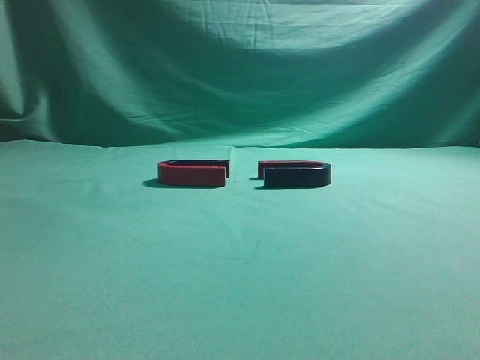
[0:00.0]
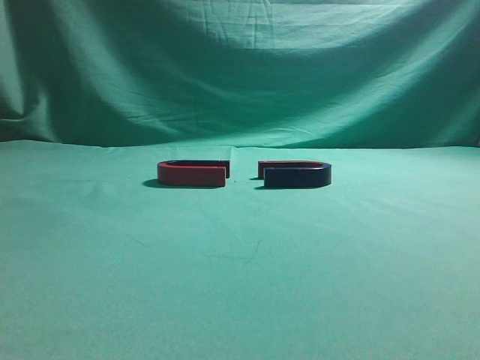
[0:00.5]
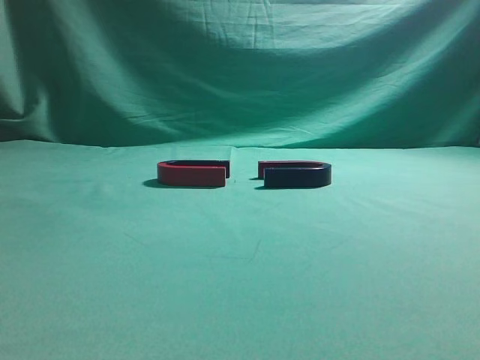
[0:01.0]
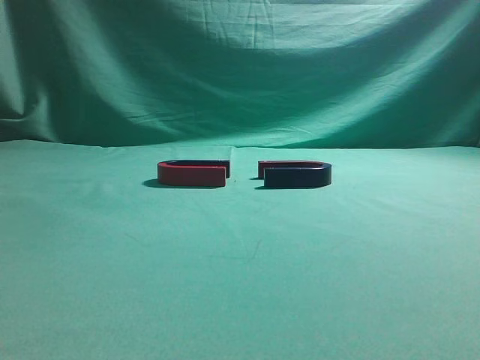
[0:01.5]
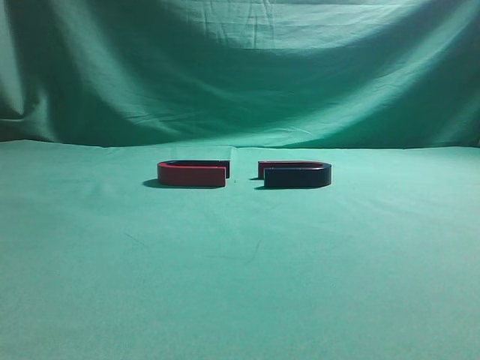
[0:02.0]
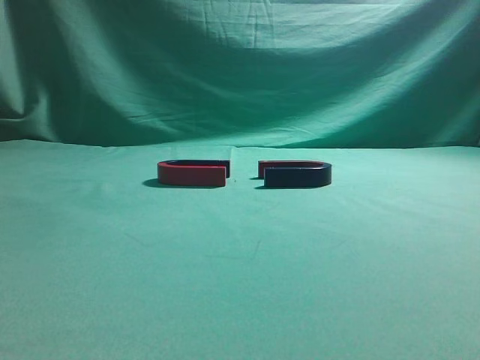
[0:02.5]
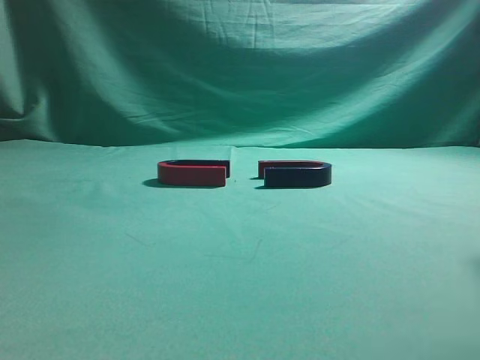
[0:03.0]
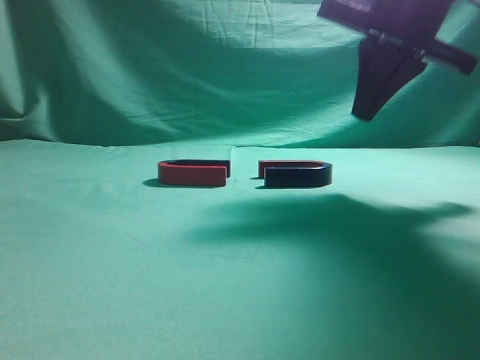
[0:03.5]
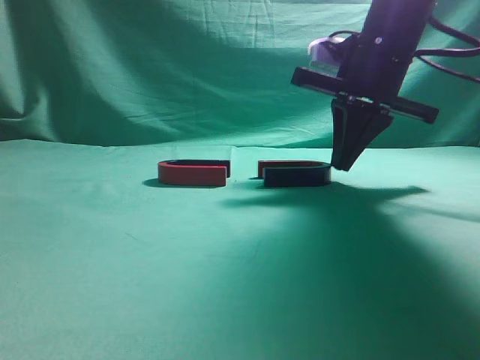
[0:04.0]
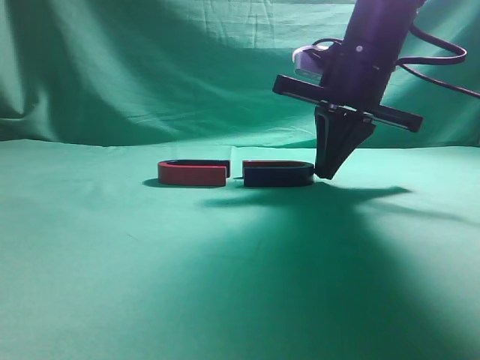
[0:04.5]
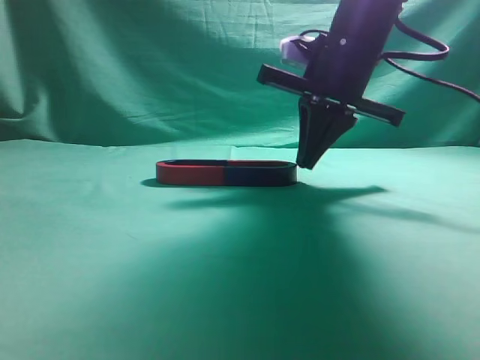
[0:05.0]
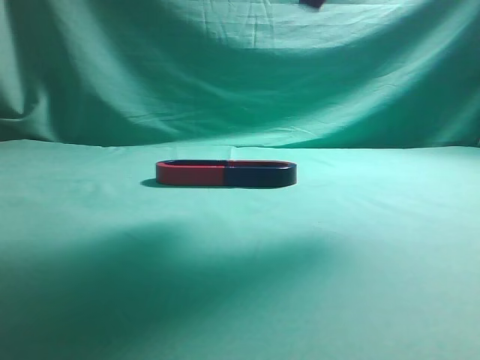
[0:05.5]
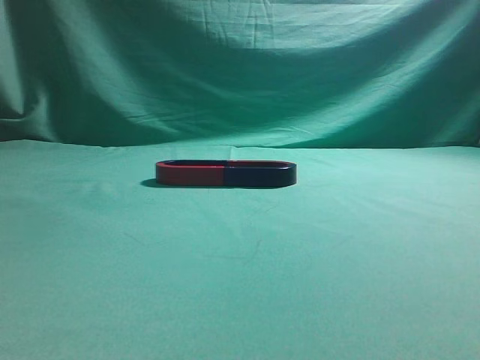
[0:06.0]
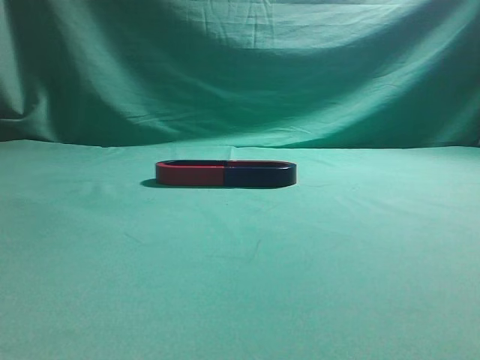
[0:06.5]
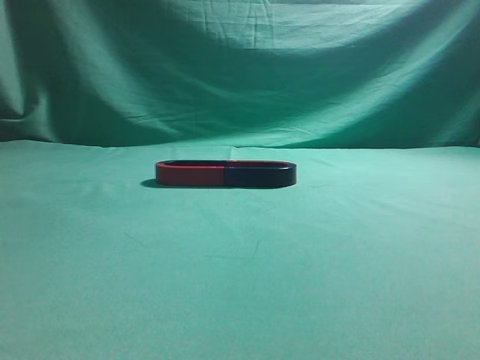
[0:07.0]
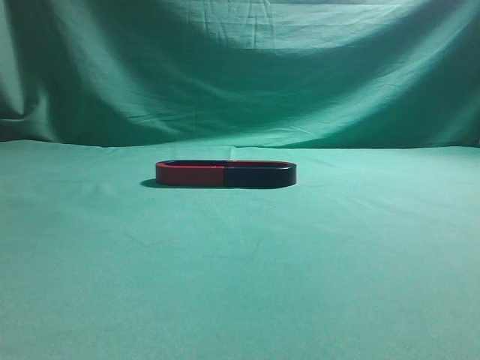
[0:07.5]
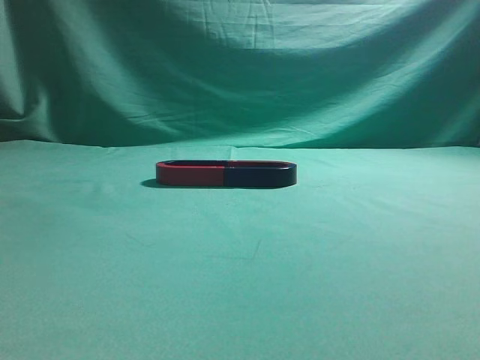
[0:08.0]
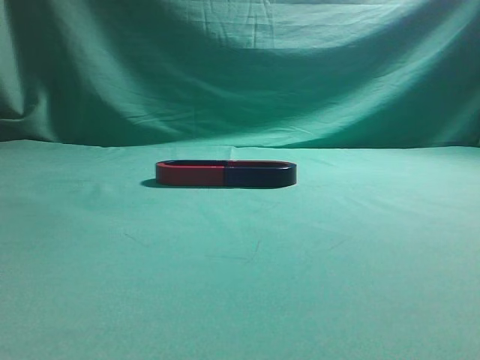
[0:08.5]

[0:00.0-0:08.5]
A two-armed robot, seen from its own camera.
Task of the whole recording: push the magnet on the table from its original position to another position.
Step, 0:00.0 to 0:05.0: Push the magnet on the right to connect the magnet on the left.
0:02.0 to 0:04.0: The right gripper moves forward, some 35 cm.
0:04.0 to 0:06.5: The right gripper travels backward and upward by approximately 40 cm.

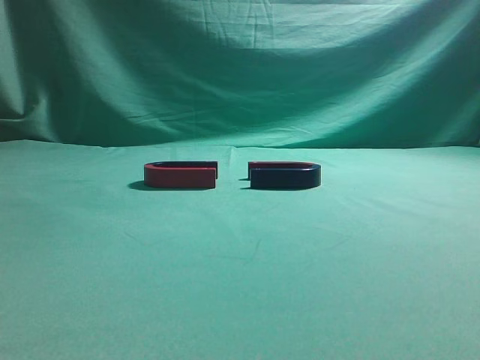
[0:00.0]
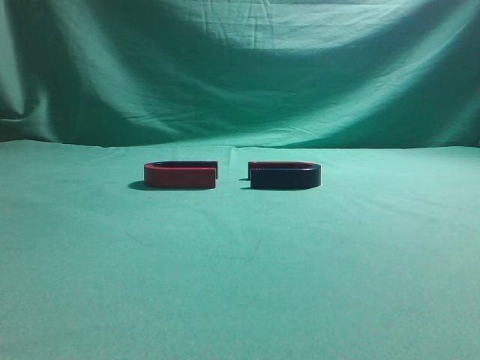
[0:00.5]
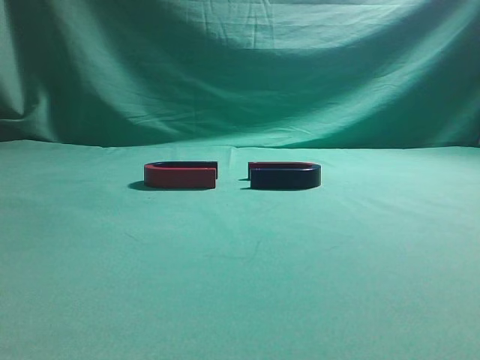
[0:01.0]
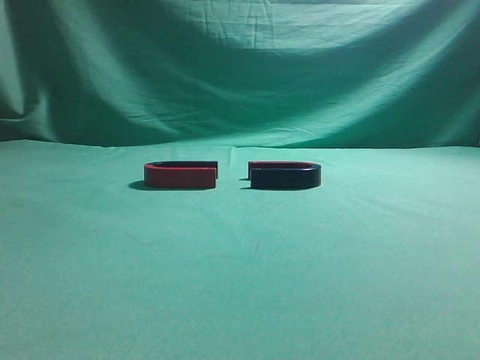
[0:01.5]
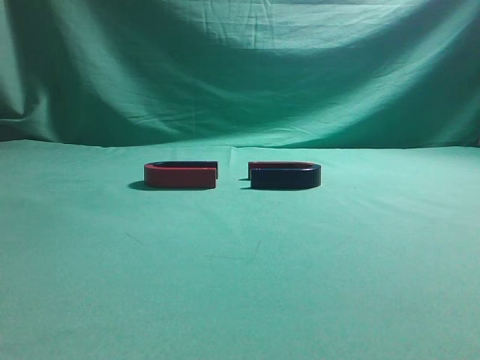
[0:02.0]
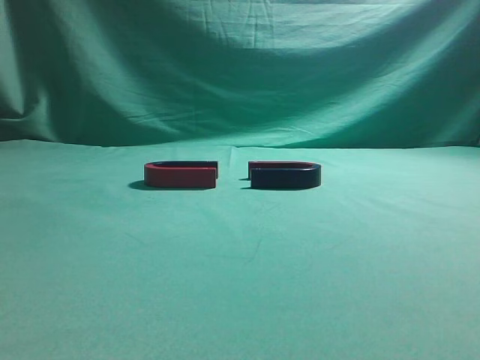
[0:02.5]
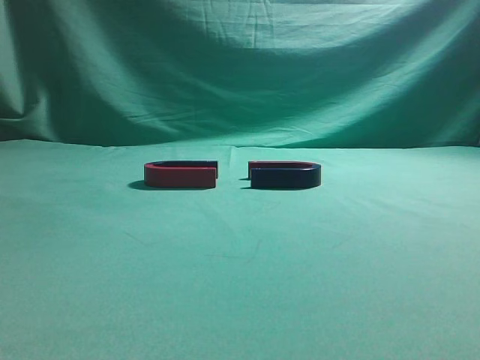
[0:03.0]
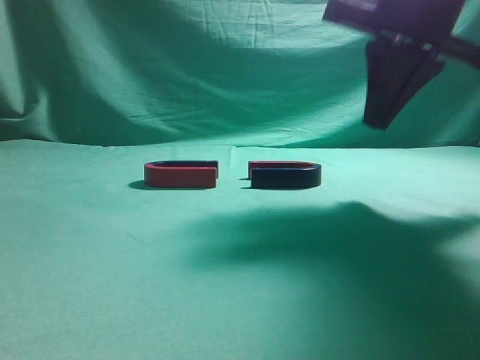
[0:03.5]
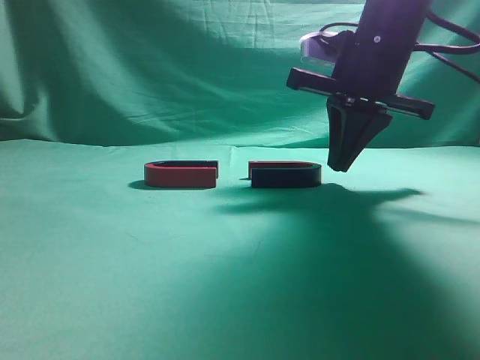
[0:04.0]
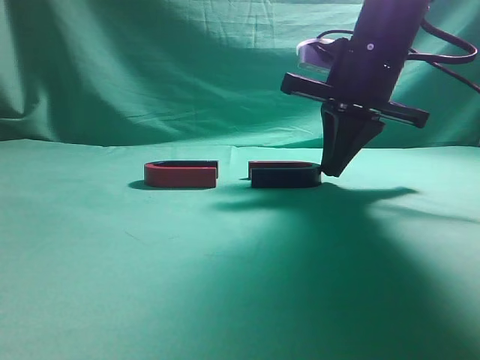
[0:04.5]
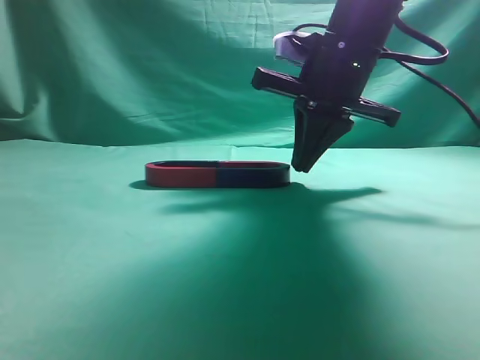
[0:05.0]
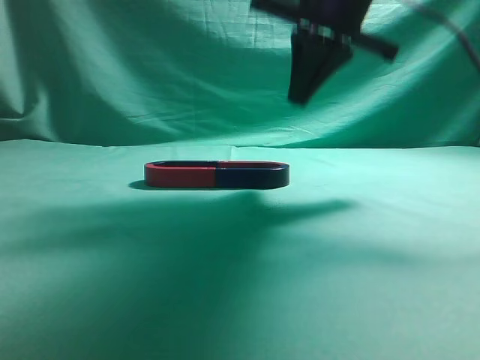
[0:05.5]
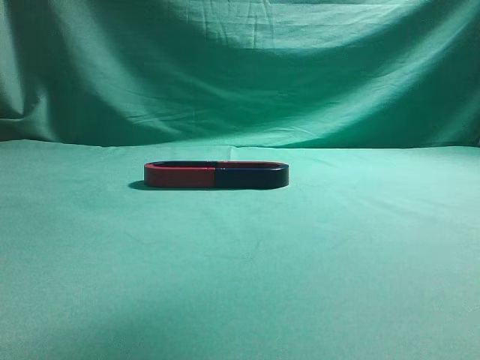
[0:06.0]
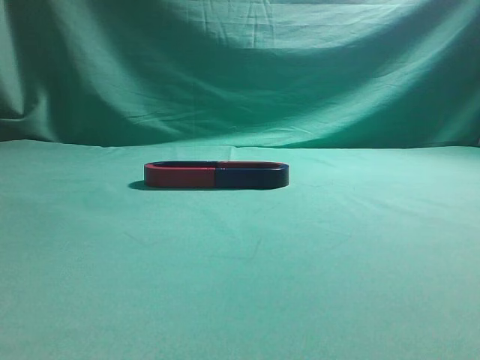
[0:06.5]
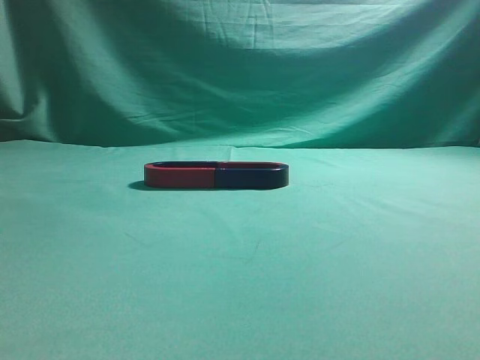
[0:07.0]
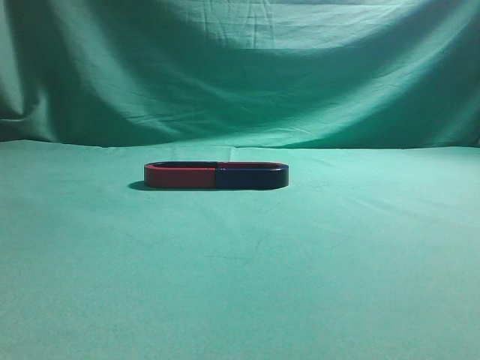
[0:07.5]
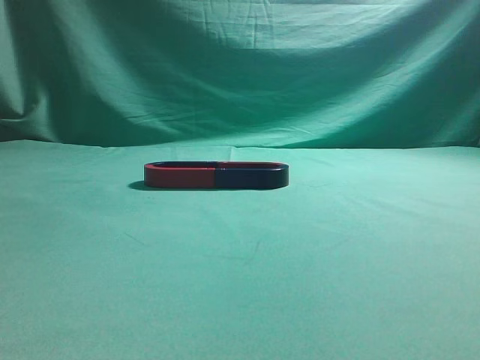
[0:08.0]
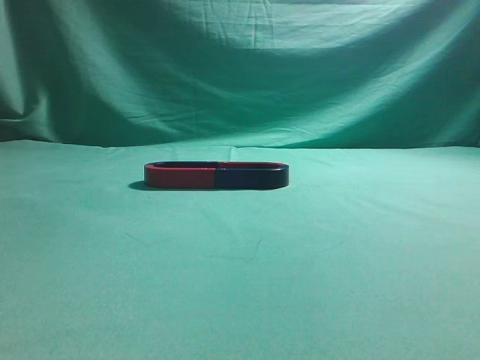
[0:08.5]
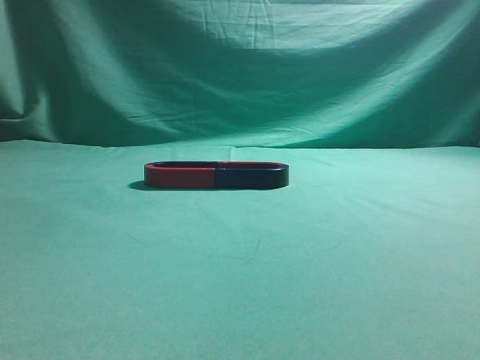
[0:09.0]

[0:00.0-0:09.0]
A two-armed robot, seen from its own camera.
Task of the whole recording: push the magnet on the table from its original position to another position.
Step, 0:00.0 to 0:05.0: Push the magnet on the right to connect the magnet on the left.
0:02.0 to 0:04.5: The right gripper is displaced forward and to the left by roughly 35 cm.
0:04.5 to 0:07.0: The right gripper is displaced backward and upward by some 35 cm.
